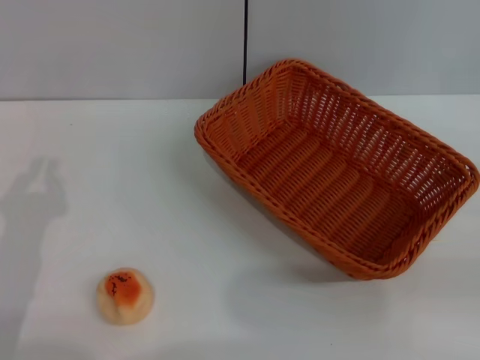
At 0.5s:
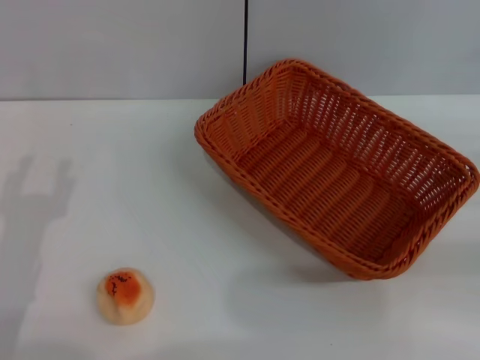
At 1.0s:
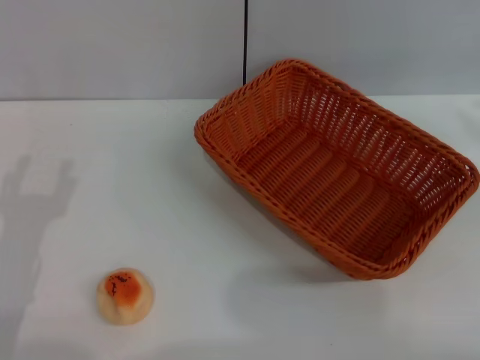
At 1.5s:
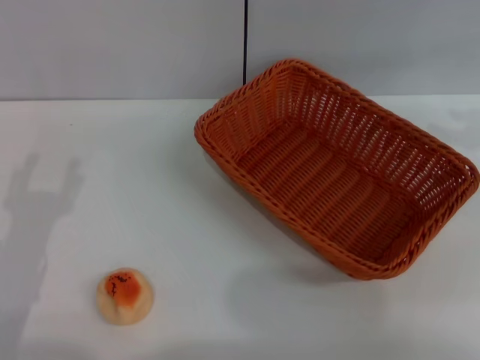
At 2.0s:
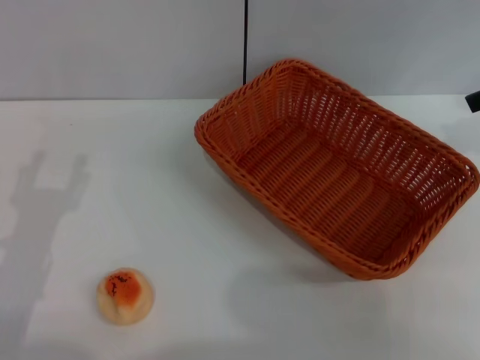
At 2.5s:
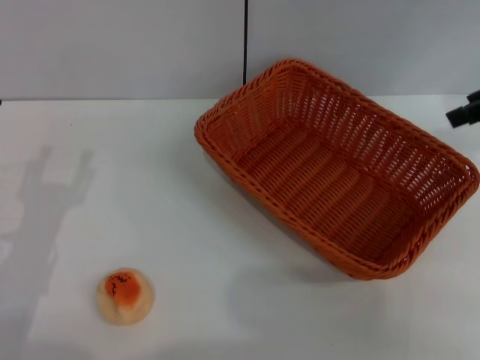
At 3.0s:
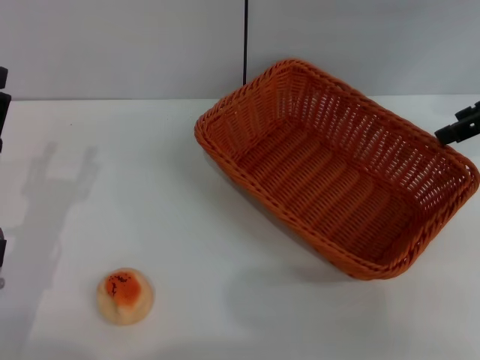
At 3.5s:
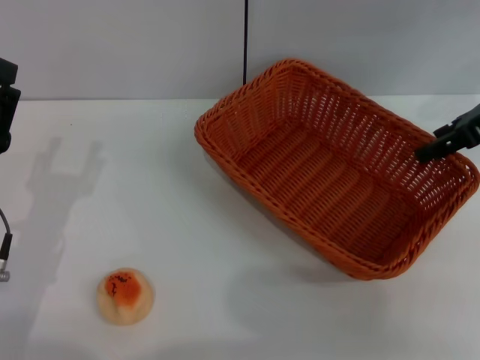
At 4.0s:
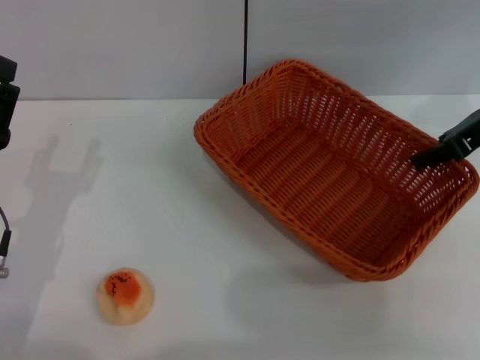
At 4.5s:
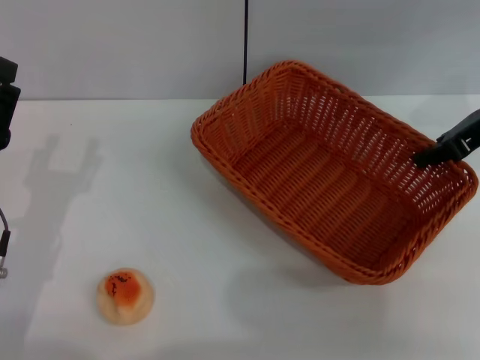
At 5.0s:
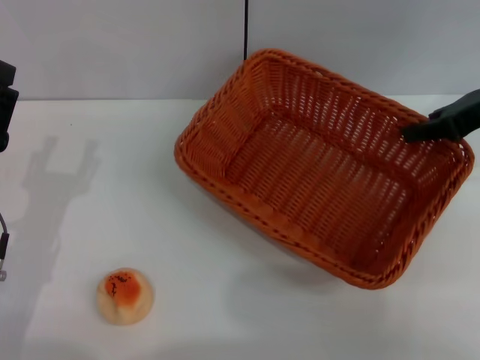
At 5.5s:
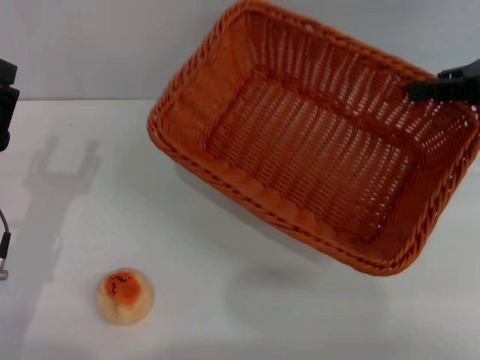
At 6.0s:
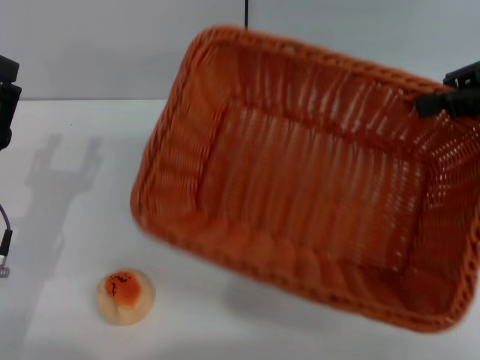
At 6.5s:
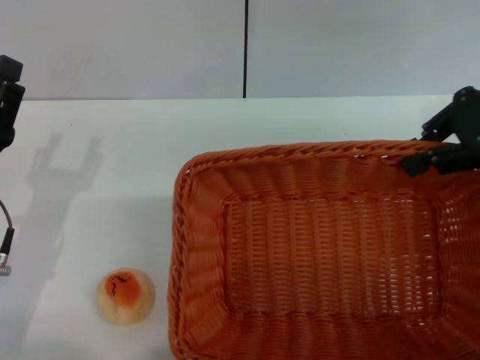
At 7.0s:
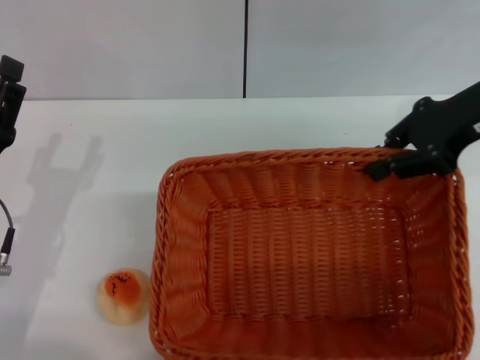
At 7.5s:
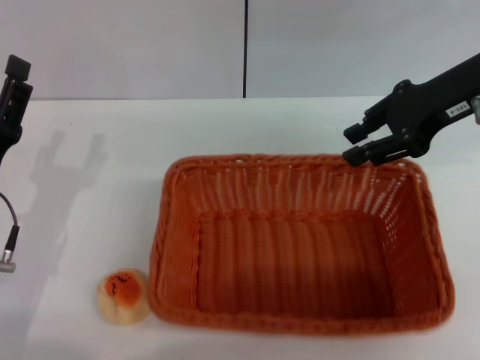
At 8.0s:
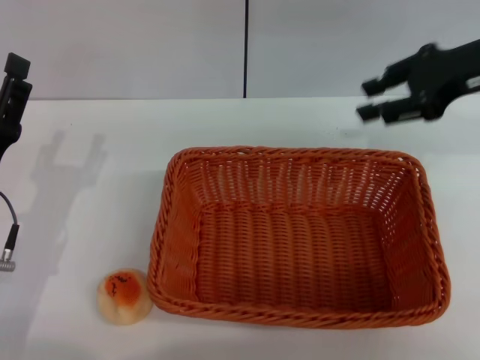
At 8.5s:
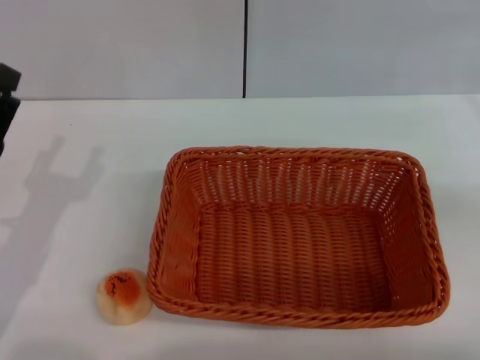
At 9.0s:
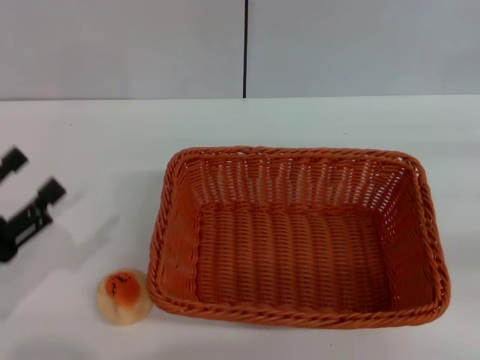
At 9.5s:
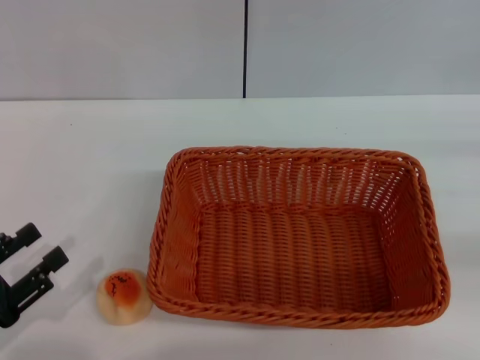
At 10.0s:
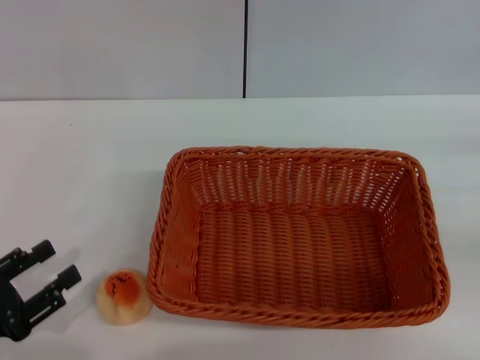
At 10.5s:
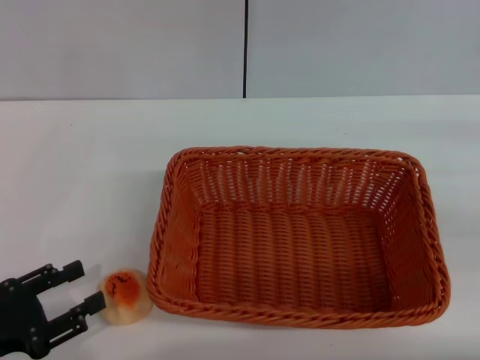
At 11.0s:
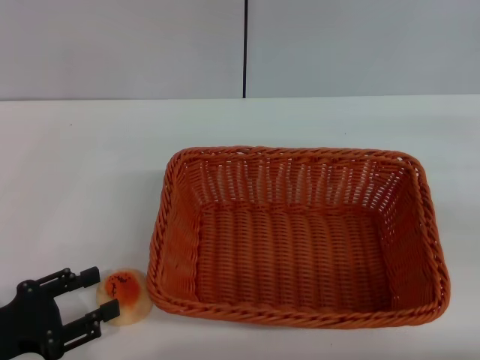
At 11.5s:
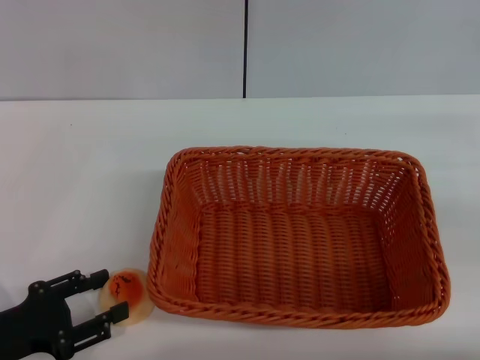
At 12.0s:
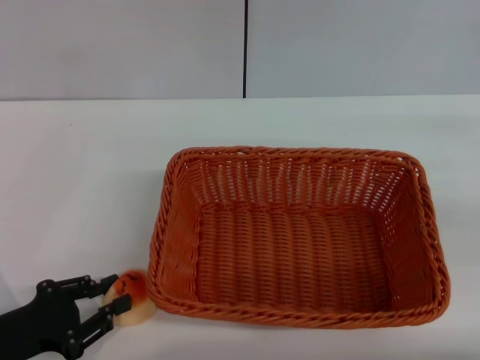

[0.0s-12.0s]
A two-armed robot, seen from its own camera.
Step, 0.0s to 7.5s: Move the basket to the center of view with the right gripper.
0.0s to 2.0s: The right gripper goes approximately 25 cm upward and forward, and opens its fingers.
2.0s to 4.0s: The right gripper travels downward by some 10 cm.
4.0s to 6.0s: The right gripper moves upward, approximately 5 cm, and closes up.
6.0s to 8.0s: The right gripper shifts by approximately 5 cm, and opens its fingers.
8.0s to 10.0s: The left gripper goes about 10 cm backward and to the left, while the right gripper shifts about 25 cm to the right, backward and downward.
10.0s to 12.0s: The grippers make only small movements.

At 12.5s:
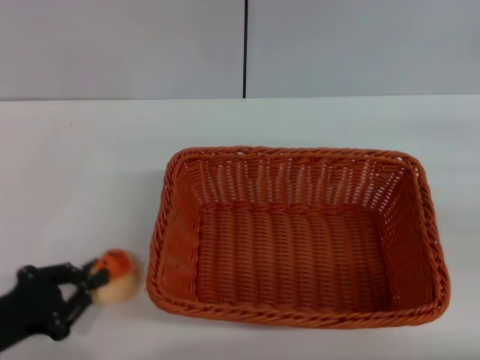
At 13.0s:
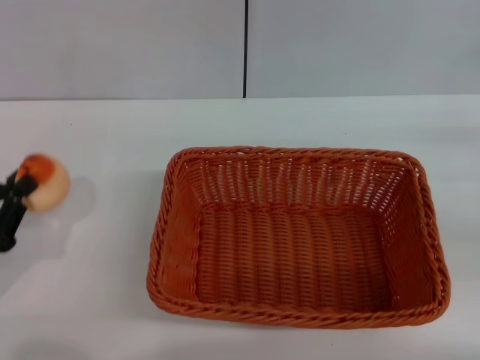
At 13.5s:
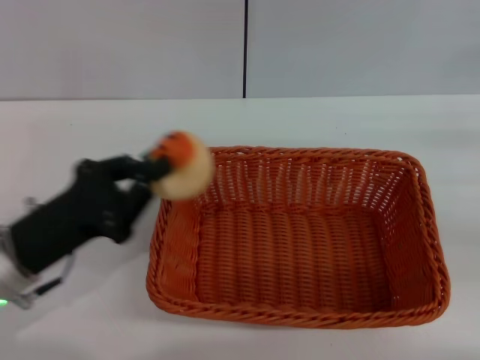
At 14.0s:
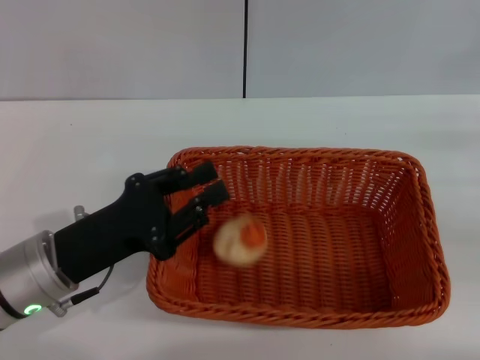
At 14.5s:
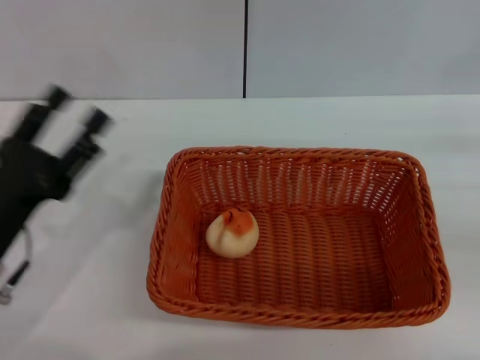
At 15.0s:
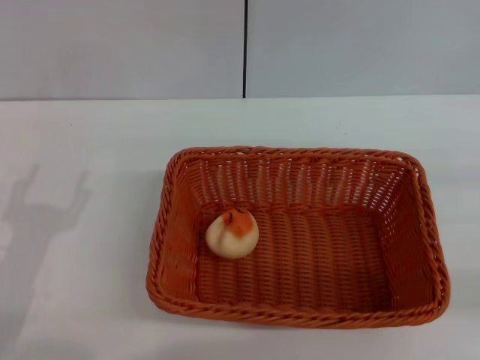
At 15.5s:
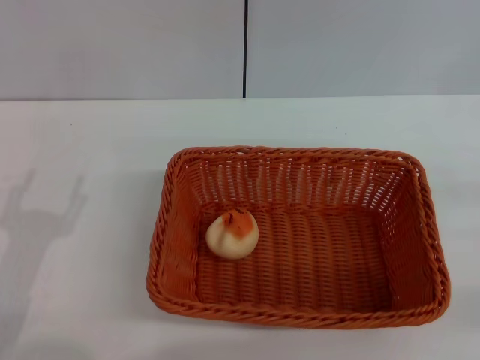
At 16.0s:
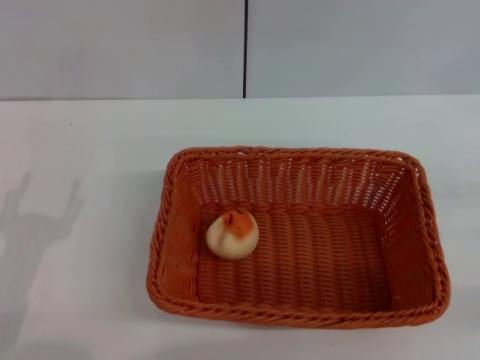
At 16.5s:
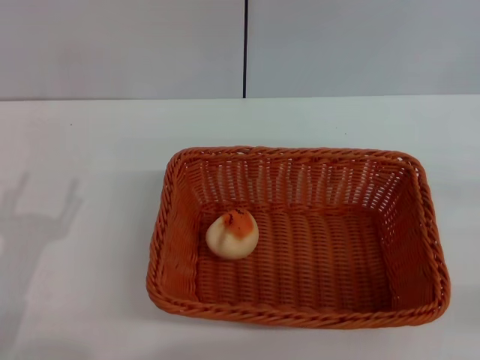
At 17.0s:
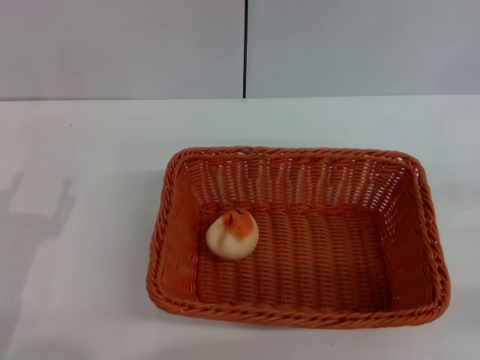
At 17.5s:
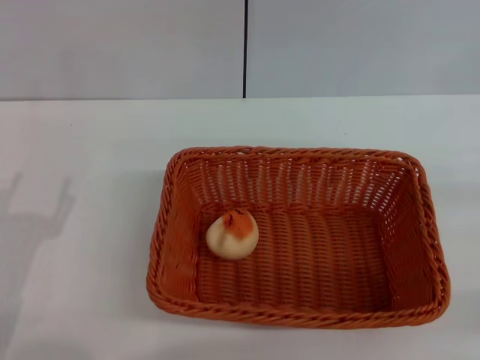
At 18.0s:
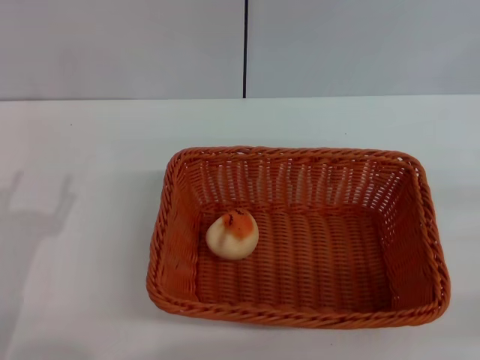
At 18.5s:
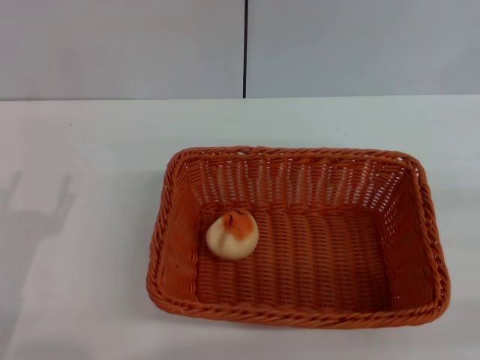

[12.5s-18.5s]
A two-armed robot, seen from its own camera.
Step, 13.5s to 14.0s: Place the egg yolk pastry into the basket with the left gripper.
12.5s to 14.5s: The left gripper is displaced to the right by about 5 cm, and opens its fingers.
14.5s to 16.5s: The left gripper shifts by roughly 5 cm.
16.5s to 18.5s: Neither gripper changes place.
